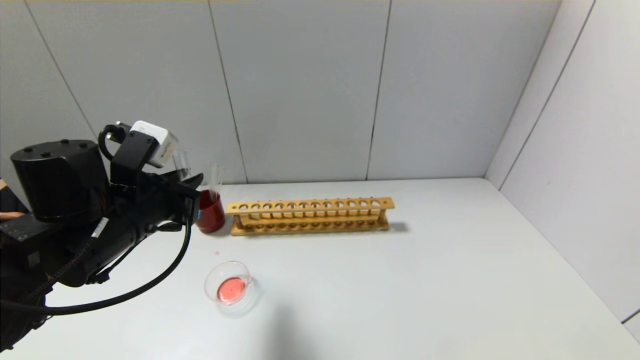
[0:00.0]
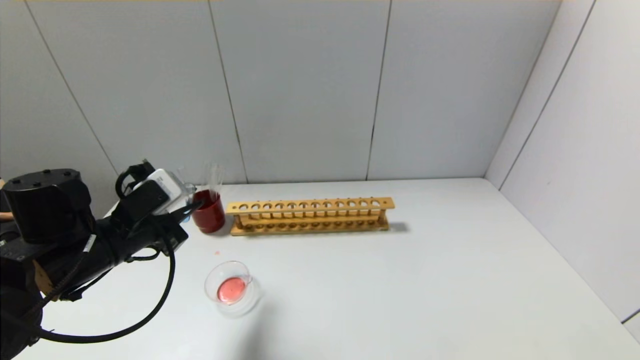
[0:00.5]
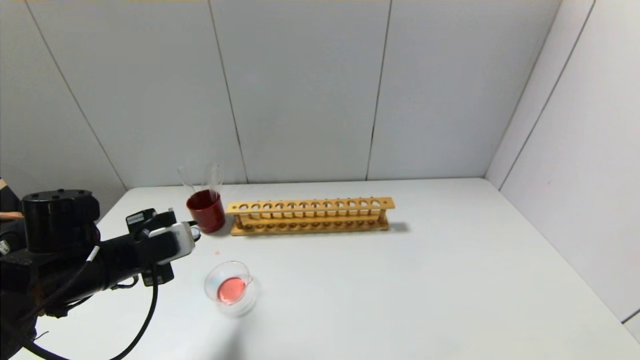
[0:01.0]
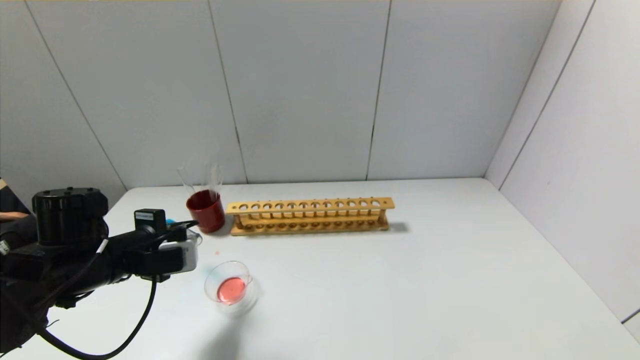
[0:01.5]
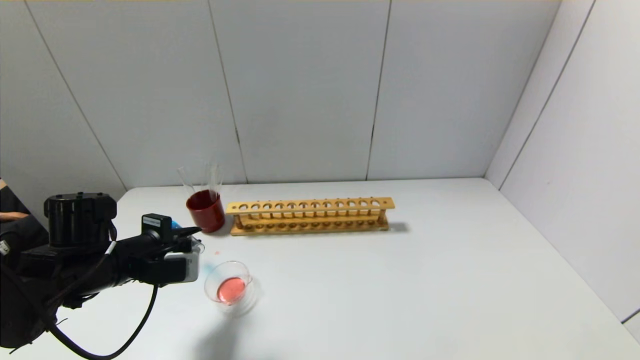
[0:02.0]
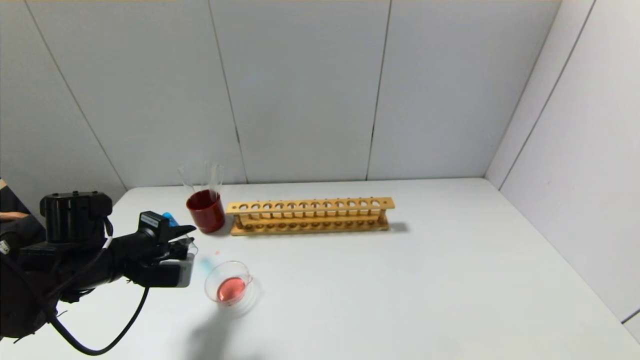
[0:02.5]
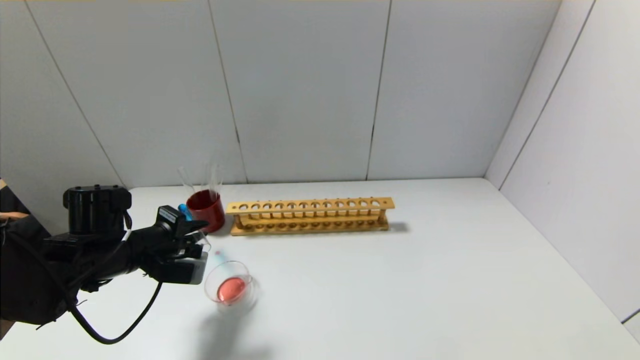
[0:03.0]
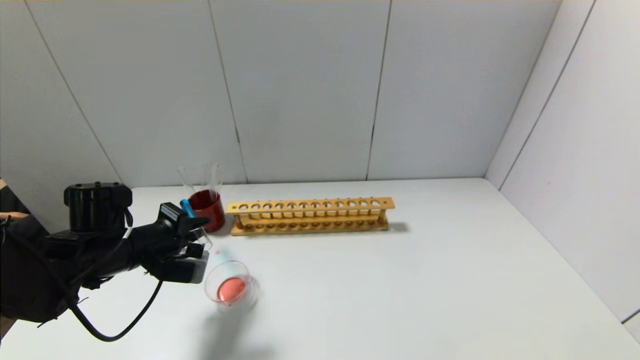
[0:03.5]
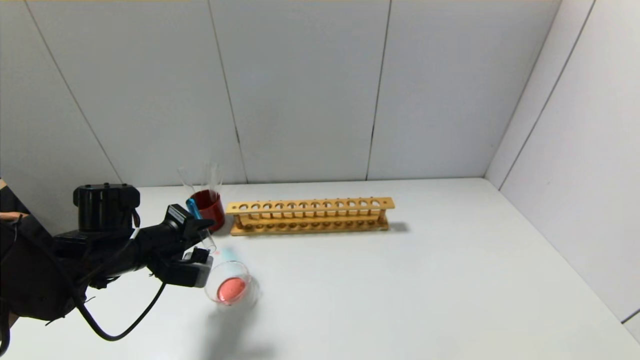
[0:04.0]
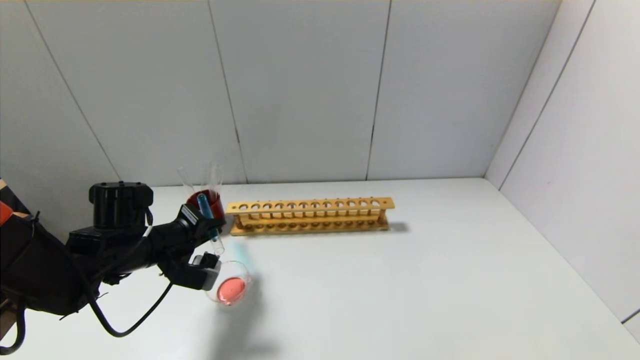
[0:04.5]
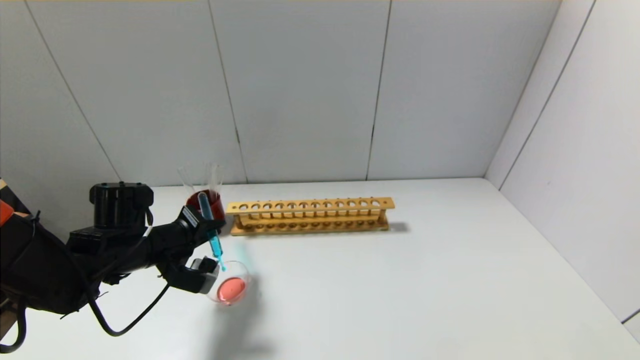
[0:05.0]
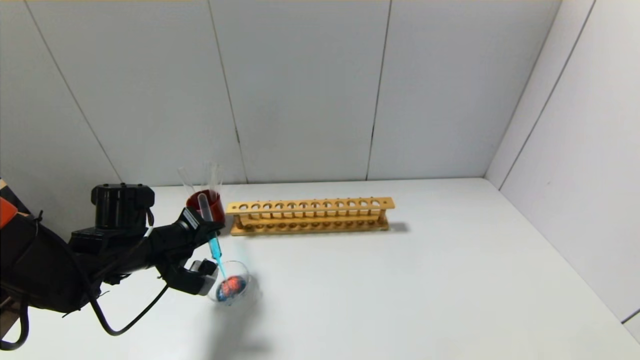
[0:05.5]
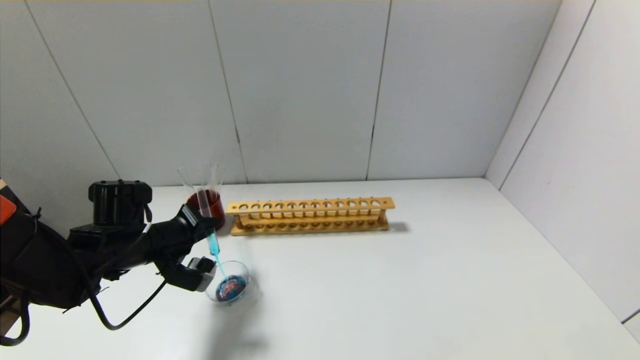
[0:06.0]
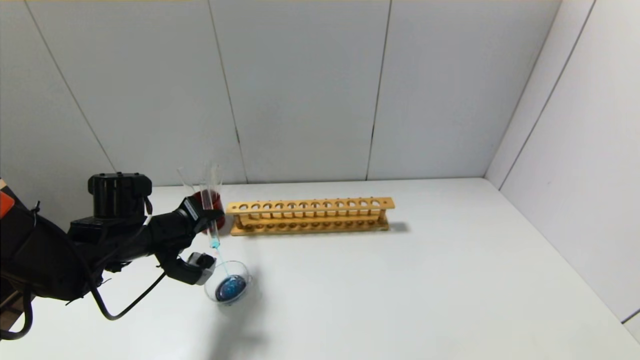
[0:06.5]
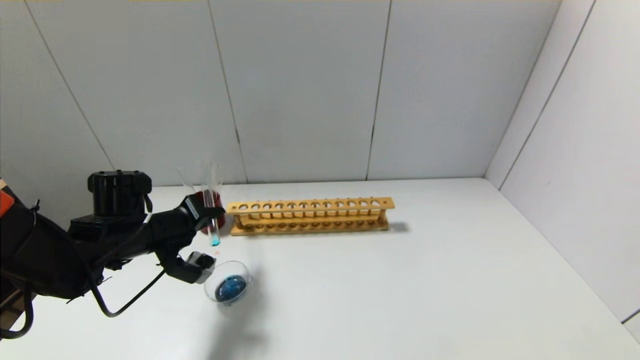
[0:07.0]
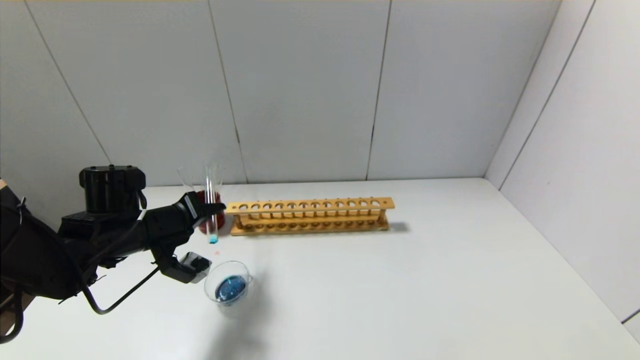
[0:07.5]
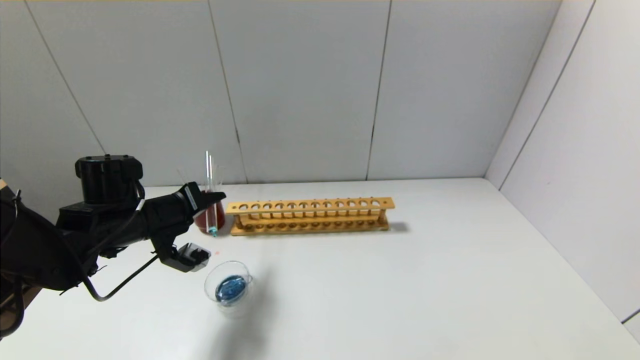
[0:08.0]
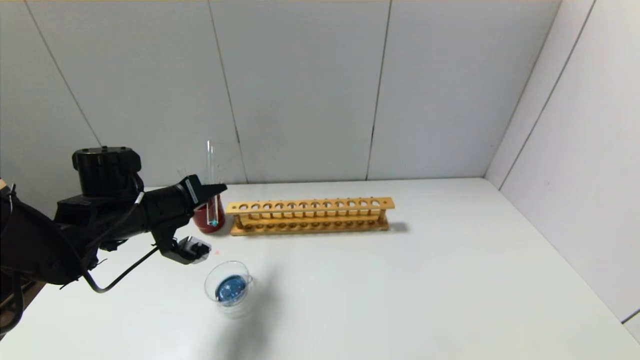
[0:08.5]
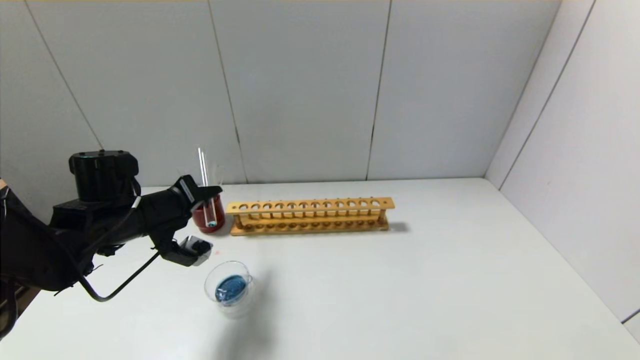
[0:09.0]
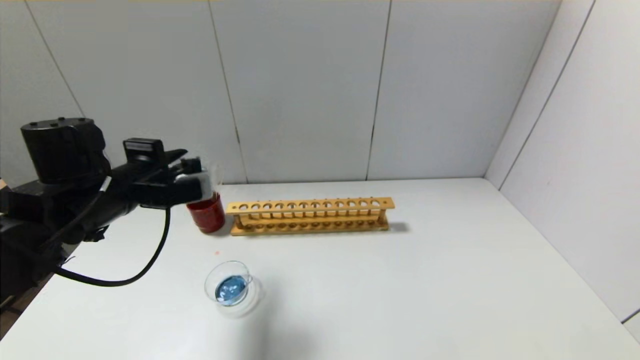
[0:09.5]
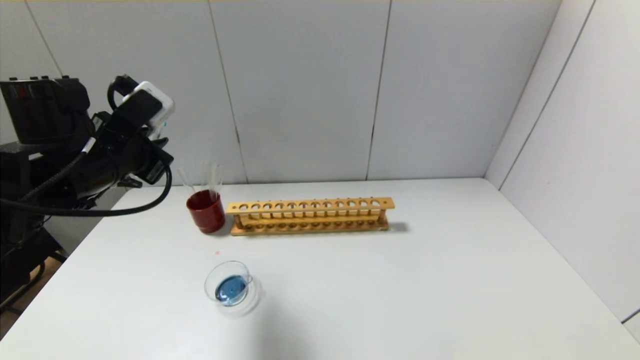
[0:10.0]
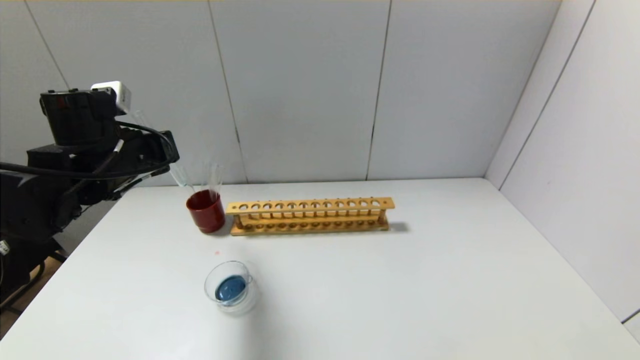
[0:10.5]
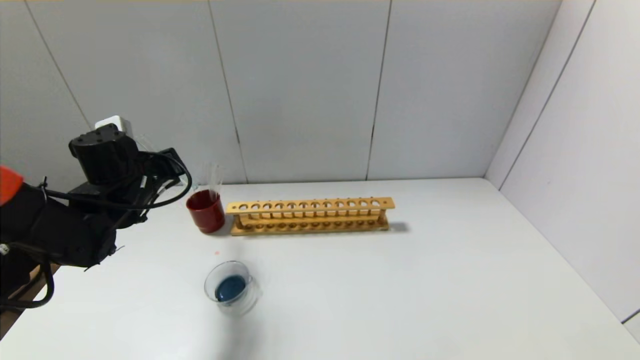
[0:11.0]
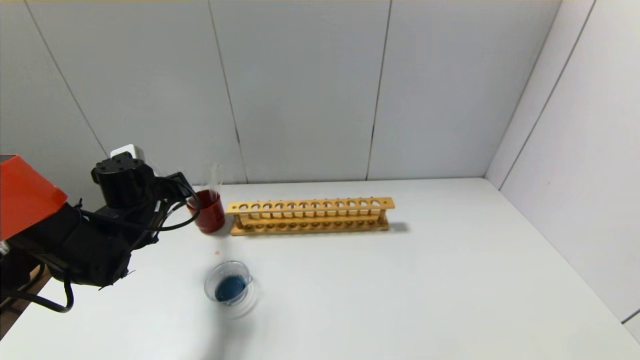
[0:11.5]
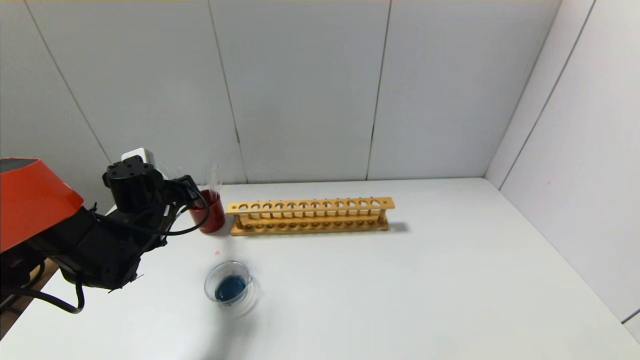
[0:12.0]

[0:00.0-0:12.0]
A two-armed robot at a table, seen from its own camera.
Step, 0:00.0 to 0:09.0: Pour the blue reagent into the graduated cylinder with the left gripper.
0:00.0 to 0:02.0: The left gripper travels downward and to the left by about 10 cm.
0:04.0 to 0:06.0: The grippers move only a little.
0:08.0 to 0:10.0: The left gripper travels upward by about 10 cm.
0:10.0 to 0:12.0: The left gripper heads downward and forward, covering about 15 cm.

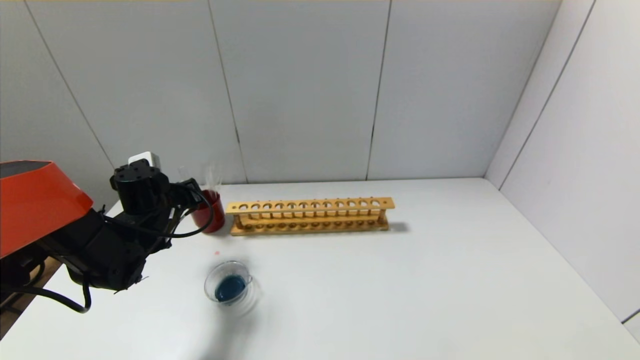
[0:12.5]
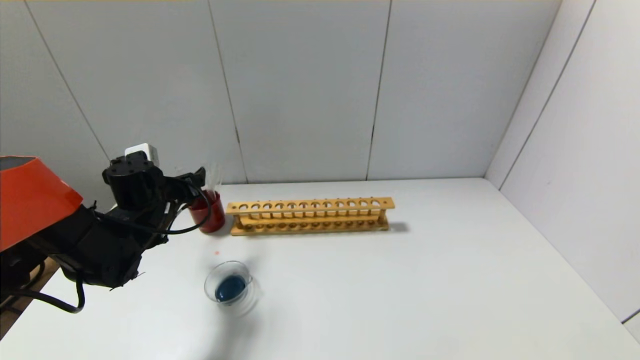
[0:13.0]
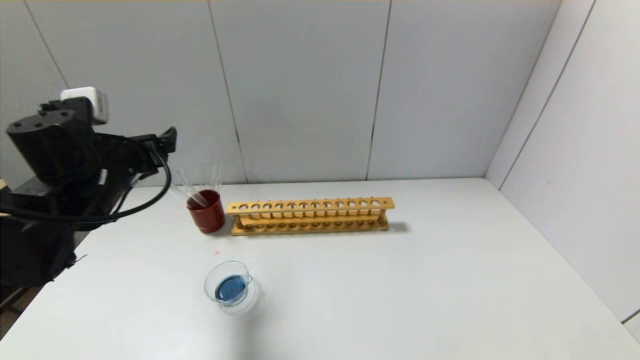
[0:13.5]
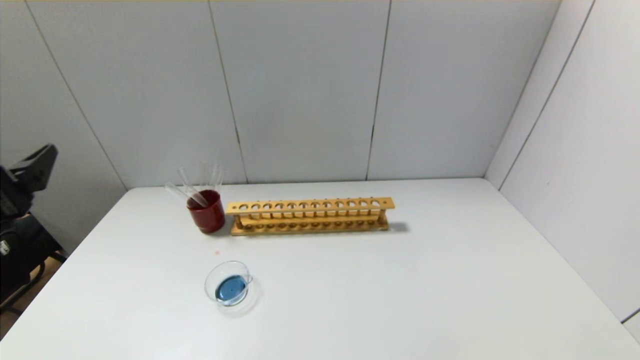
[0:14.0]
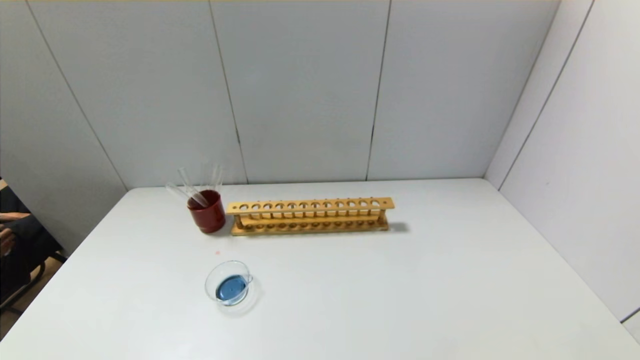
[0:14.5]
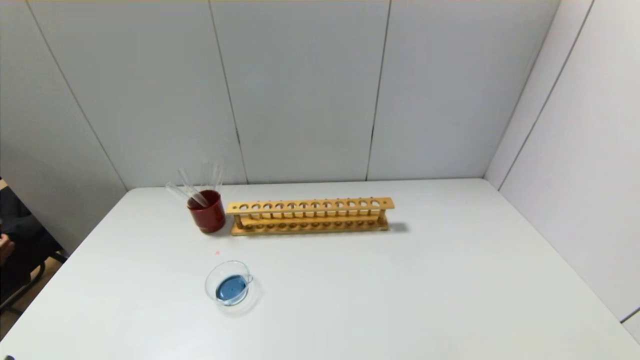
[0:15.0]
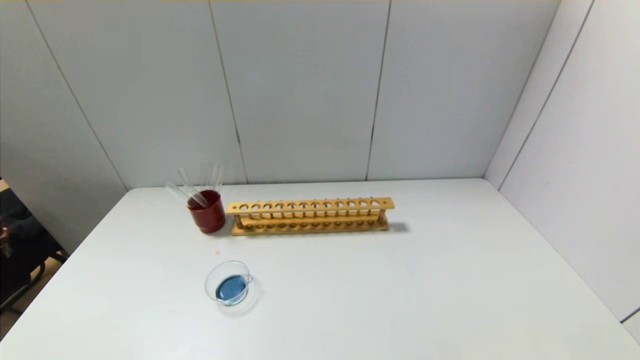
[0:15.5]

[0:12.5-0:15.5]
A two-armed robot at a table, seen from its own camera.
0:12.5 to 0:14.0: The left gripper is displaced backward and upward by about 25 cm, and opens.
0:14.0 to 0:15.5: The left gripper is displaced downward and backward by approximately 25 cm.
